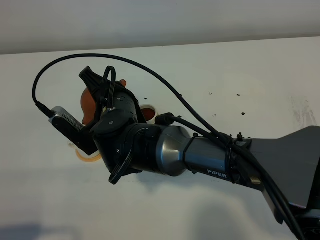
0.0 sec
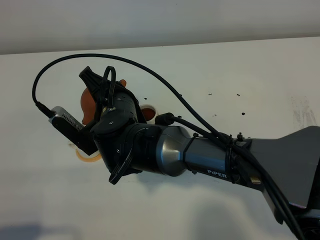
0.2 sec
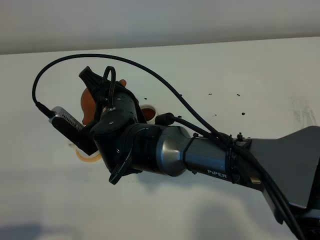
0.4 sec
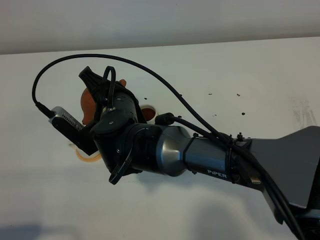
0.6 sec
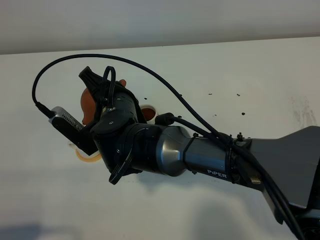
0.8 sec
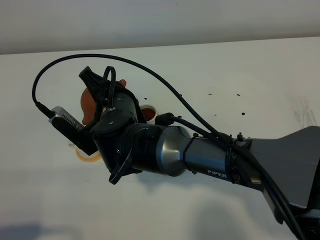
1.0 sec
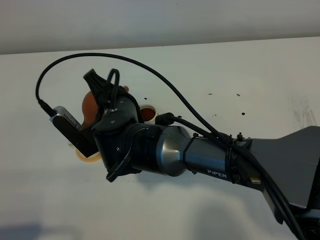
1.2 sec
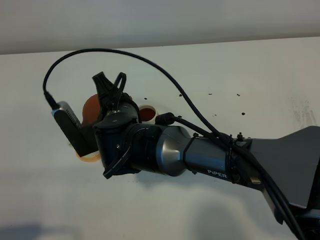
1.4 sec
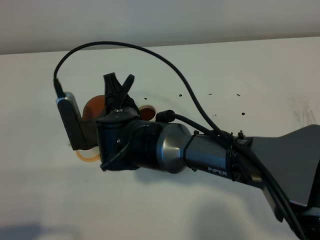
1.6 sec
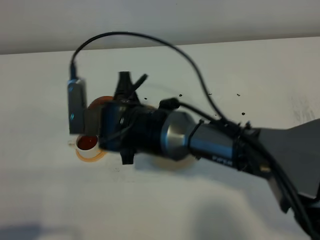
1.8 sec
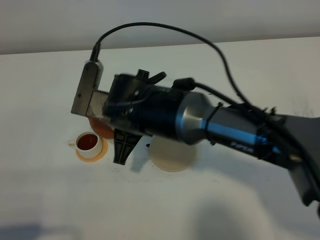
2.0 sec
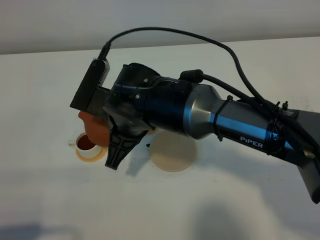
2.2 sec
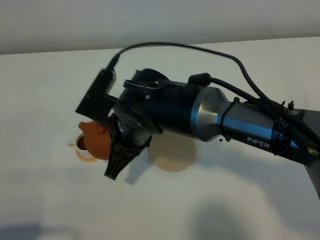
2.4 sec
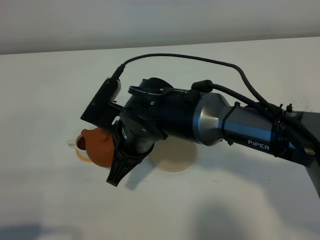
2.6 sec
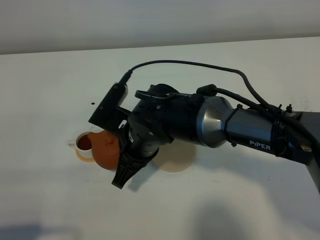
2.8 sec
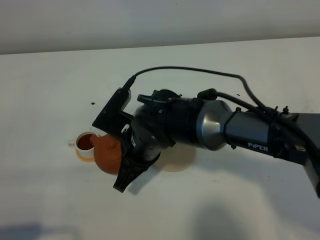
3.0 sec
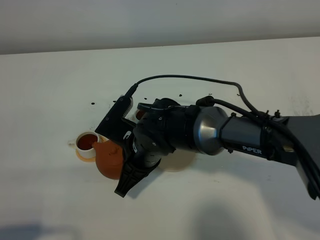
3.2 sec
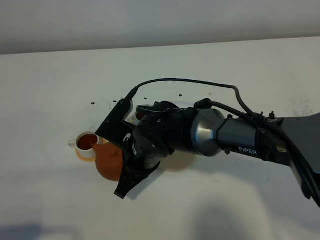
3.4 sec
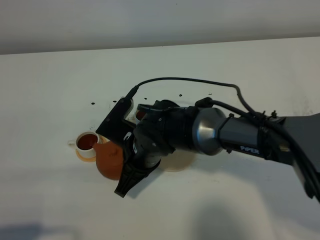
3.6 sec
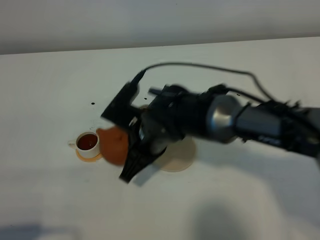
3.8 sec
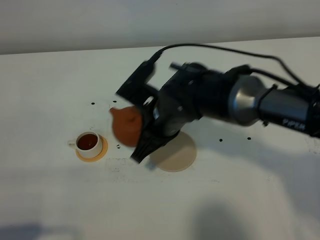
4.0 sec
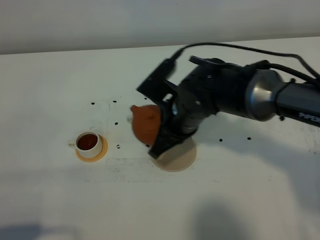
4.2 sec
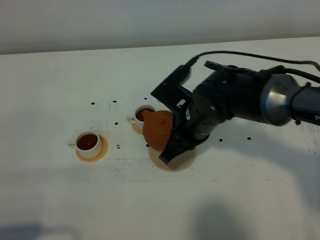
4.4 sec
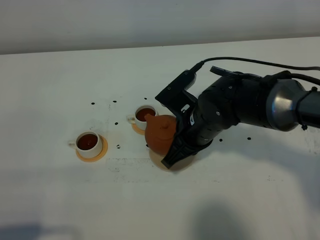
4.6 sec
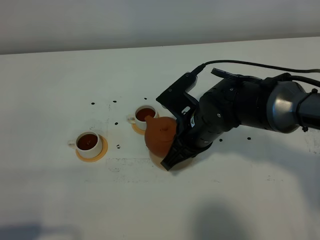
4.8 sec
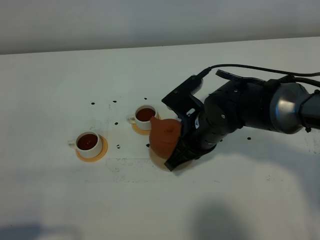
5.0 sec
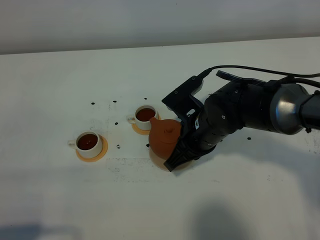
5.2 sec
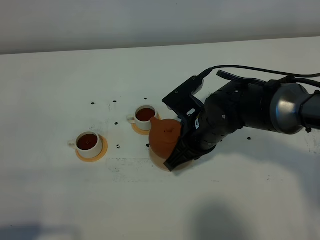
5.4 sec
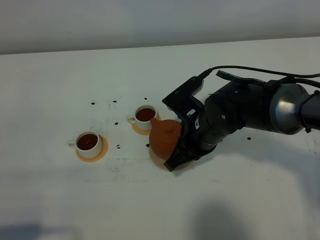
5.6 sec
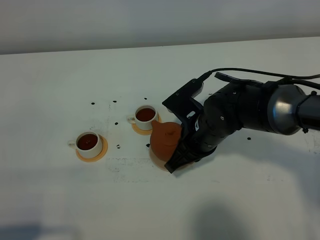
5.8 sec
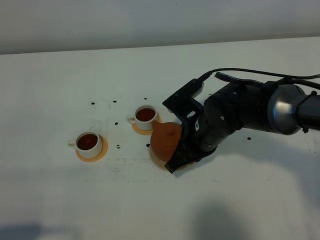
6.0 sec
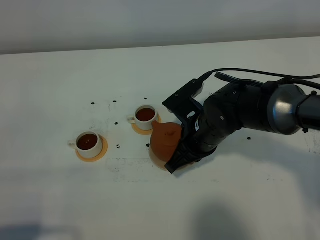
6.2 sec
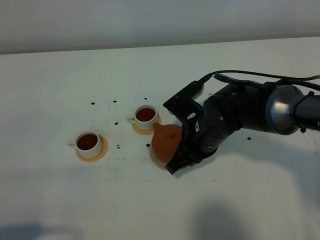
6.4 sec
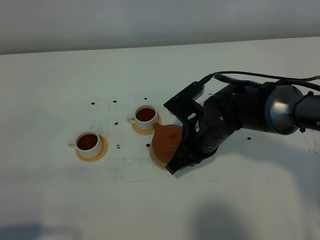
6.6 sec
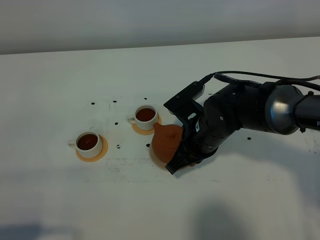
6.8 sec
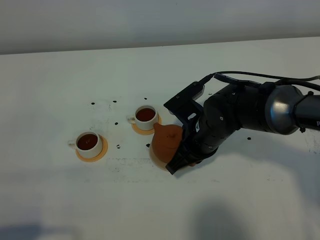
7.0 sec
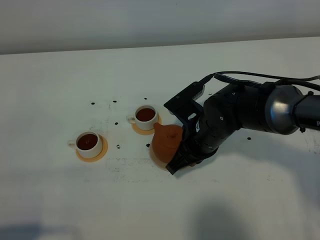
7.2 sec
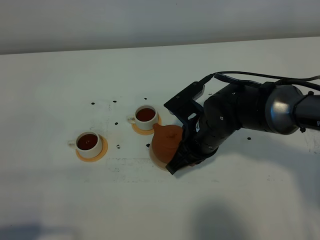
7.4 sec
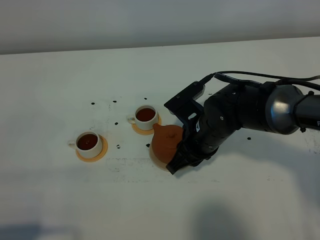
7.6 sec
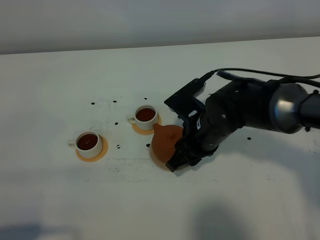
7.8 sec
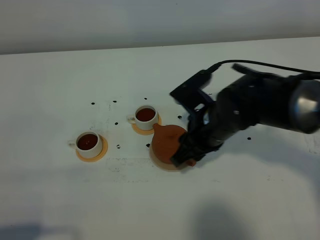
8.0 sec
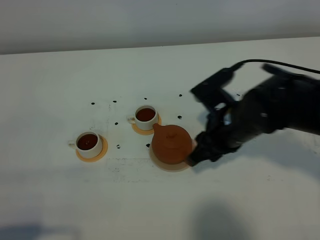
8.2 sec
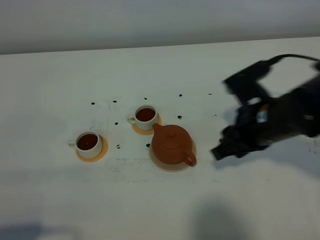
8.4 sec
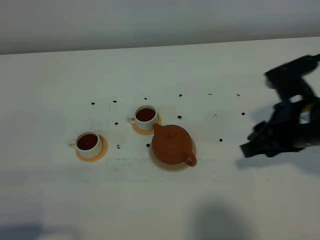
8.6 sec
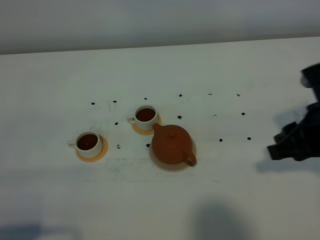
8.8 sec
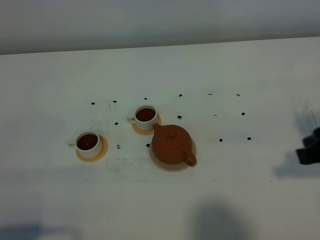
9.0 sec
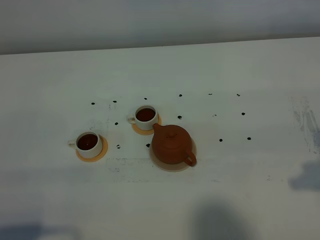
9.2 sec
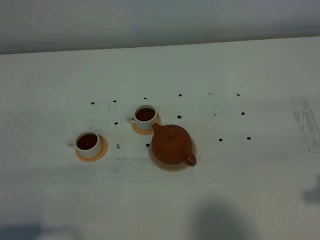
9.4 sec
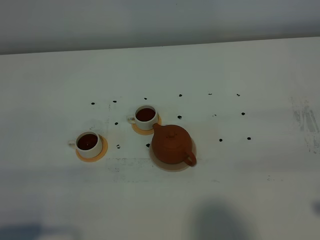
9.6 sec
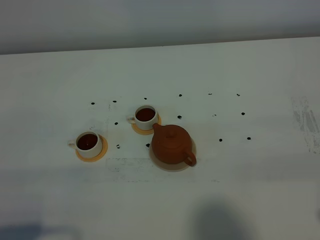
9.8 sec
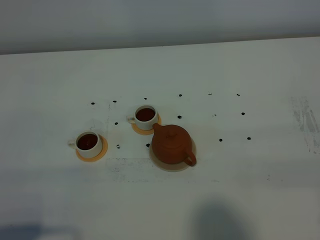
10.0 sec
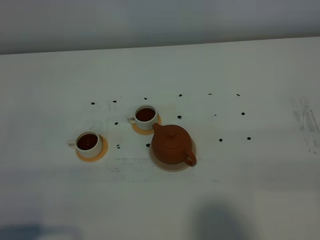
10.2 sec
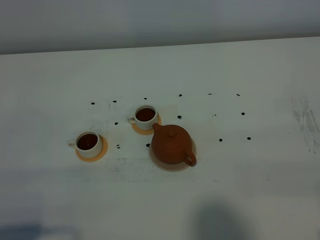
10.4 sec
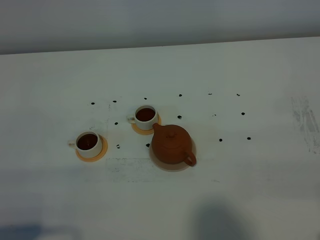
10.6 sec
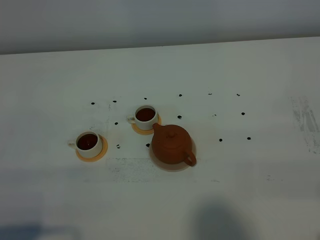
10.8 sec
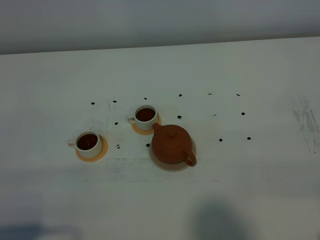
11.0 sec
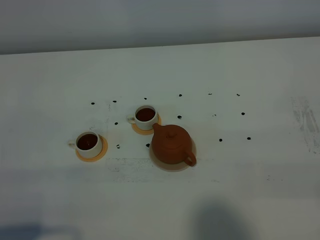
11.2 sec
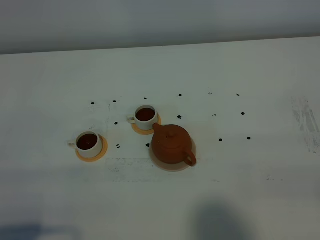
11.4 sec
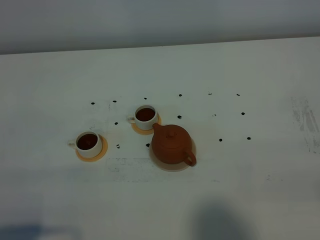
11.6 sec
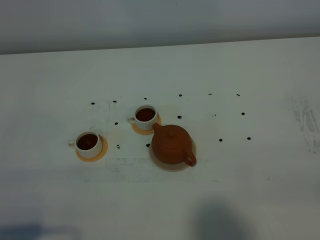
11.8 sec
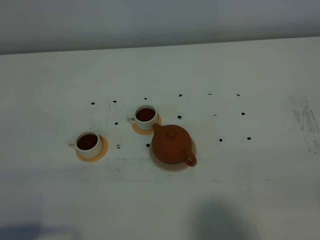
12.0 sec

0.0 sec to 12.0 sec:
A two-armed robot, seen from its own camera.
Task of the whole recording: grasp the brown teapot and pour the tea into the two white teacups one by one, put the brown teapot back in its original place.
Step, 0.0 sec to 2.0 sec: Pour tea into the teacup with the right gripper.
3.0 sec to 4.4 sec: The right gripper moves to the right, roughly 10 cm.
4.4 sec to 6.0 sec: The grippers stay close to where they were, moving slightly.
6.0 sec to 7.6 sec: The right gripper opens.
7.6 sec to 9.0 sec: The right gripper shifts approximately 25 cm to the right, backward and upward.
9.0 sec to 10.4 sec: The right gripper travels backward by roughly 15 cm.

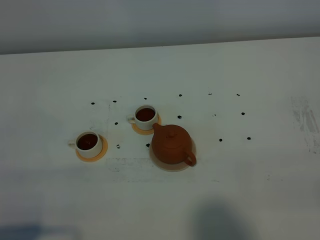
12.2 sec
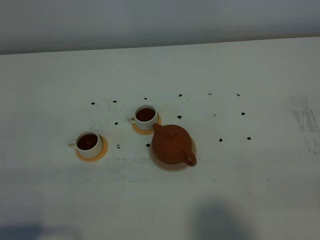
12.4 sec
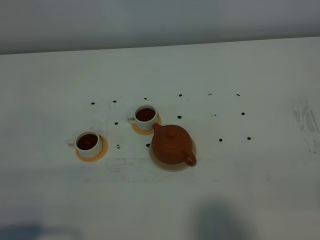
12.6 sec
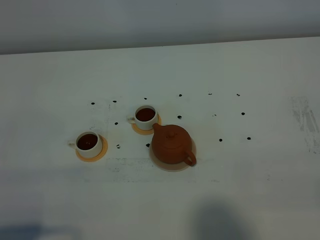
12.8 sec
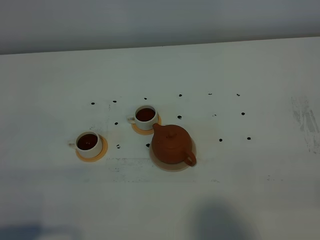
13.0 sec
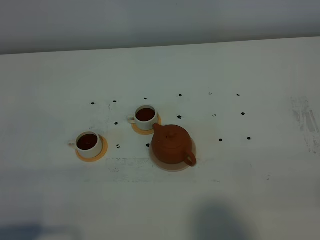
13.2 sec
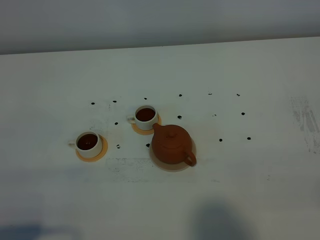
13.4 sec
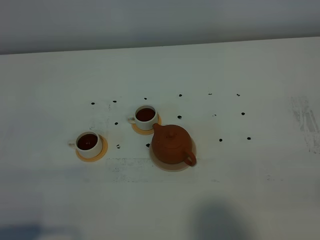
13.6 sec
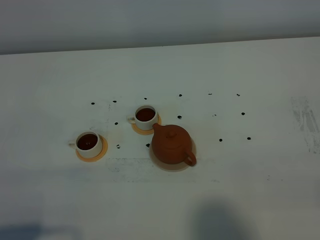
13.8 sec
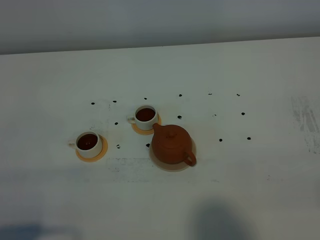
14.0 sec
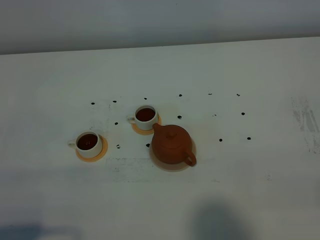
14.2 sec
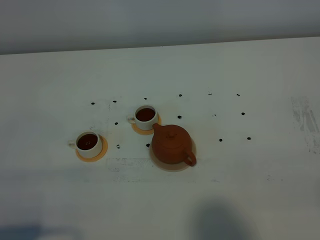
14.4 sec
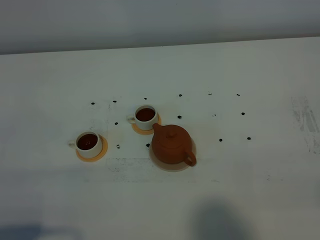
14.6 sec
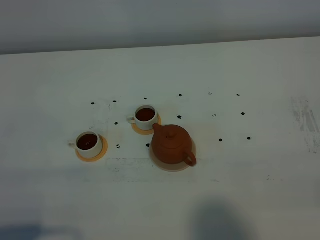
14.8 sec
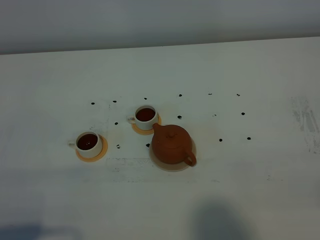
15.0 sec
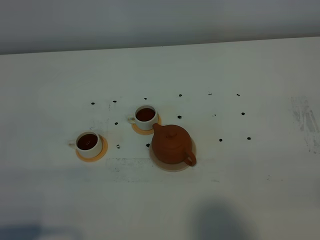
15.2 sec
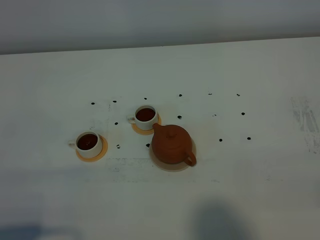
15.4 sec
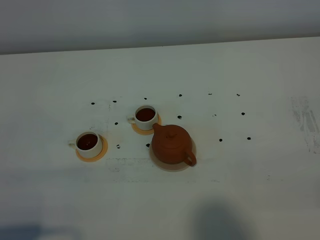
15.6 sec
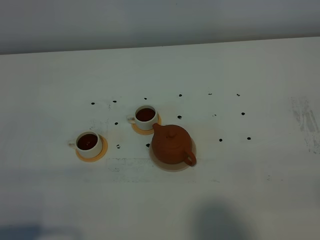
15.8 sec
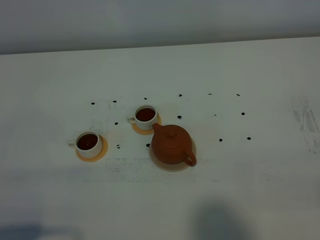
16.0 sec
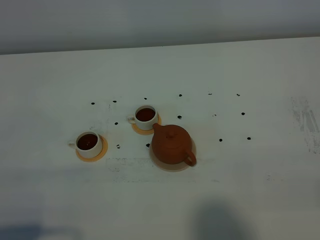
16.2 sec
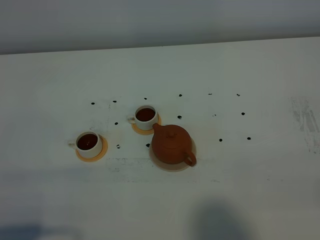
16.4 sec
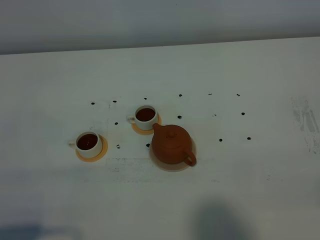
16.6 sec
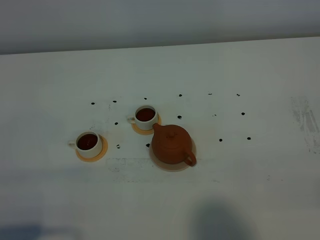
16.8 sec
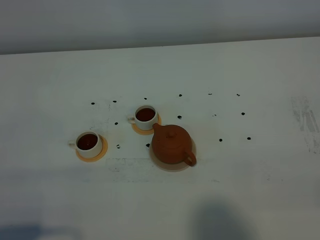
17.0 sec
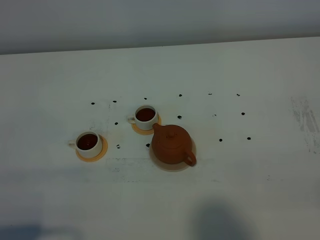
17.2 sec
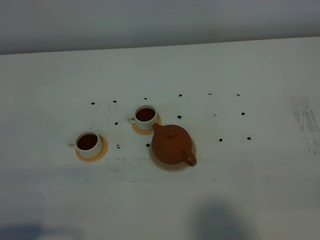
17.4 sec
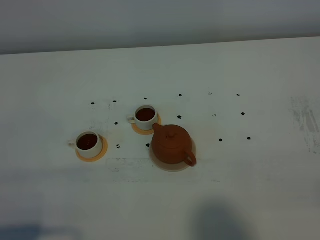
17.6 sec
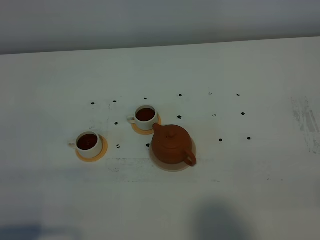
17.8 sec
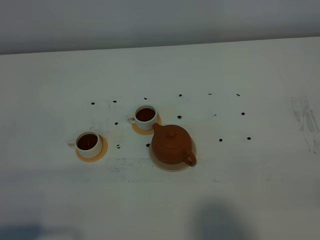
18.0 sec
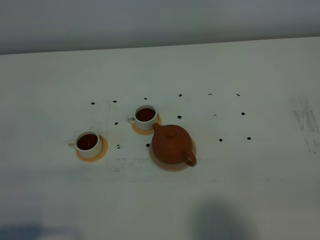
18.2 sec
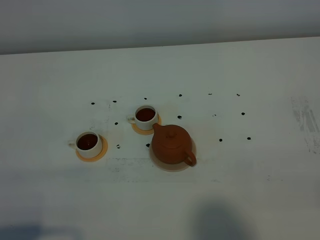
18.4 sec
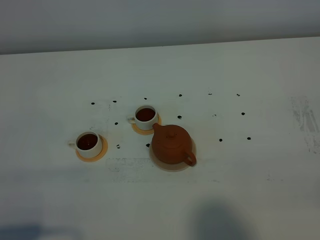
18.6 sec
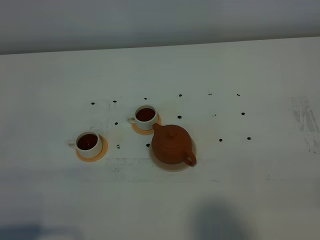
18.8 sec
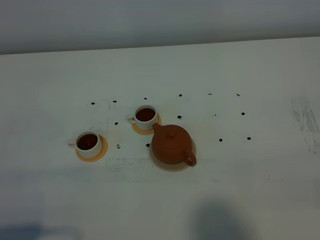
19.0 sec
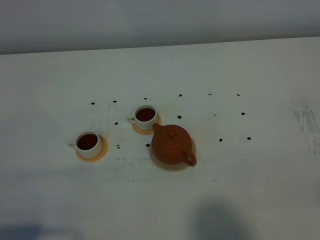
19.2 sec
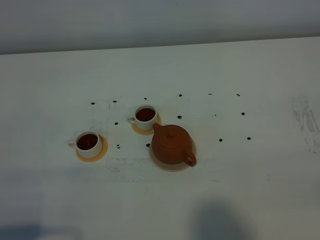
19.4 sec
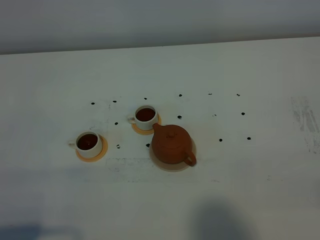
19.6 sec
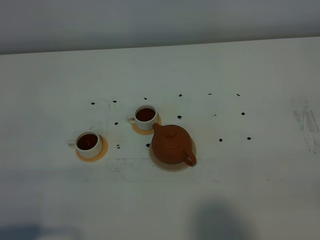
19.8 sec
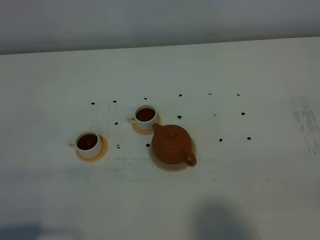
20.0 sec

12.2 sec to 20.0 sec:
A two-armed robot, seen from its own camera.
Task of the whole recording: grasp the brown teapot and pour the tea into the two white teacups one by one, put the brown teapot back in its original place.
12.2 sec to 20.0 sec: Both grippers stay put.

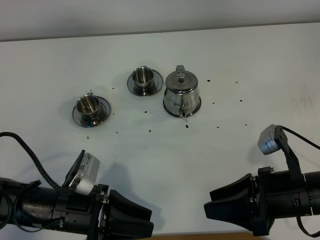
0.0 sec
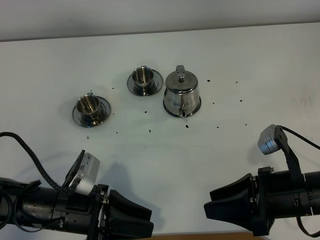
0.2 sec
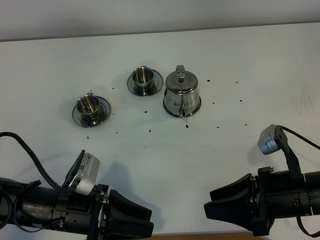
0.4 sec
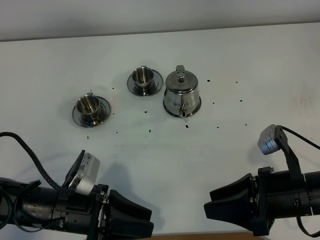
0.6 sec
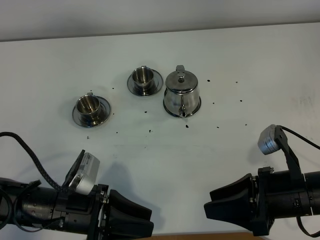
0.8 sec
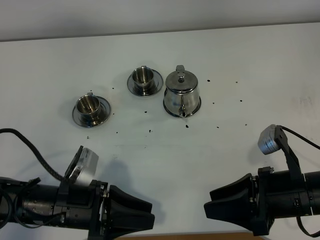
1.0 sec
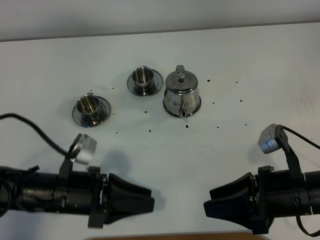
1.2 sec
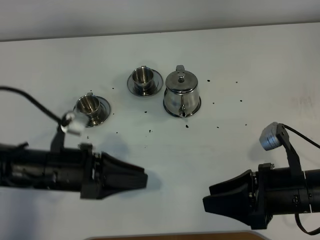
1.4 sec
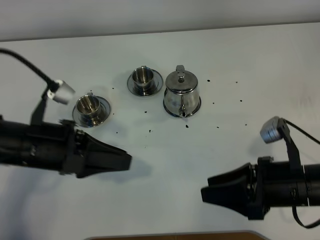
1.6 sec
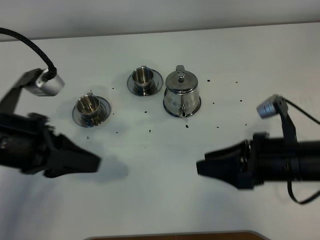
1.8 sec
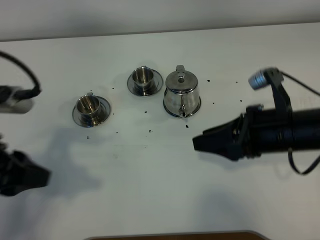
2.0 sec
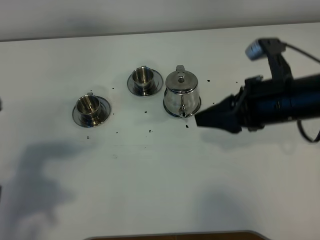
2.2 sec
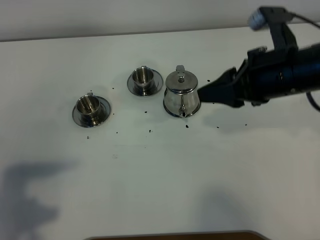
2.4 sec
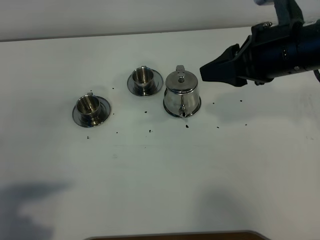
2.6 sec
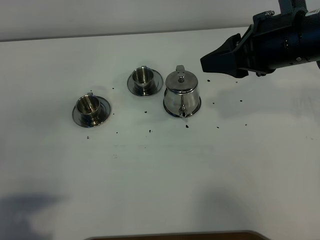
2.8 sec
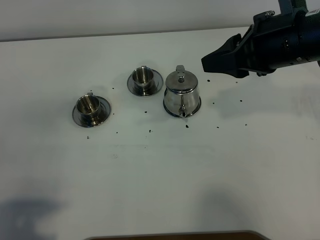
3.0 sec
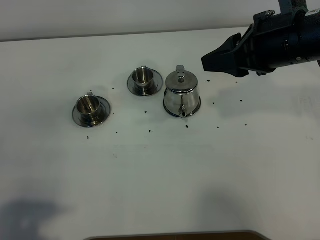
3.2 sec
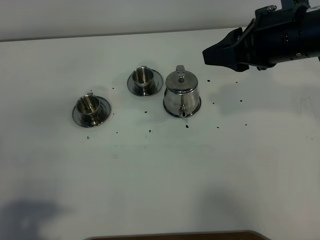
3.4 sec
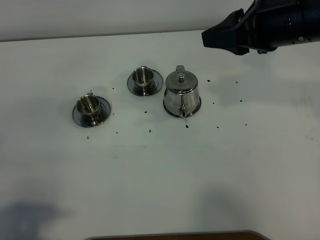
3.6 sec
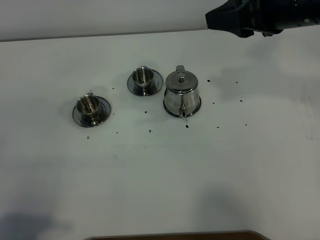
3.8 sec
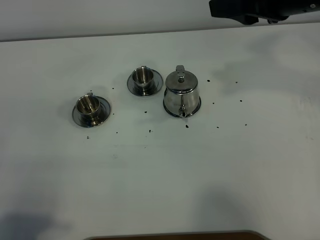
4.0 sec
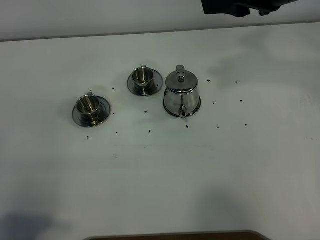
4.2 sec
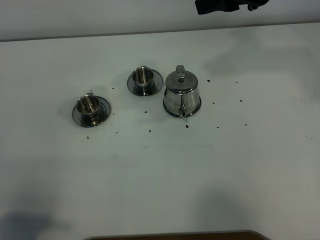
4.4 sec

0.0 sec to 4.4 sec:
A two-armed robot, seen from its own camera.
Task of the whole recording: grasp the stainless steel teapot and pour the tea into the two stainless steel teacups one by one, put the stainless steel teapot back in its original place.
0.0 sec to 1.4 sec: The left gripper is displaced forward by approximately 5 cm.
1.4 sec to 3.0 sec: The left gripper moves backward, to the left and upward, approximately 20 cm, while the right gripper heads upward and forward, covering about 20 cm.
3.0 sec to 4.4 sec: The right gripper moves forward, about 10 cm.
